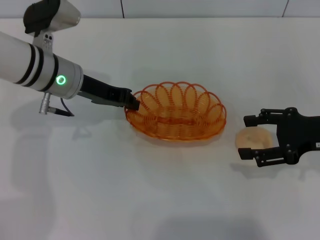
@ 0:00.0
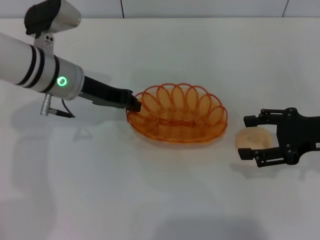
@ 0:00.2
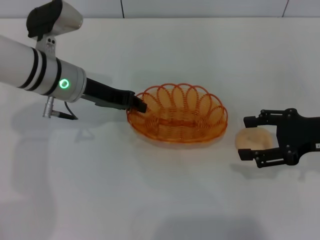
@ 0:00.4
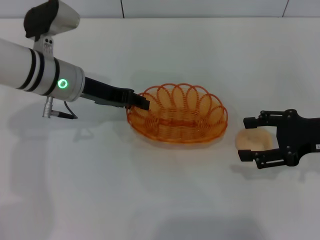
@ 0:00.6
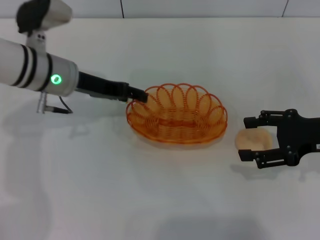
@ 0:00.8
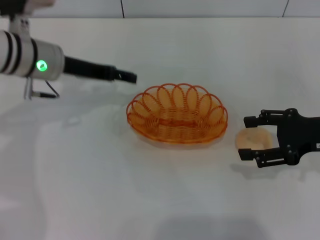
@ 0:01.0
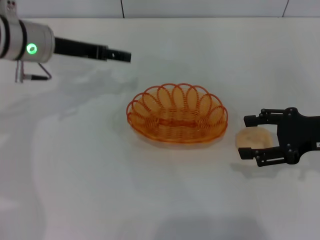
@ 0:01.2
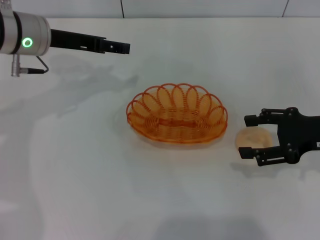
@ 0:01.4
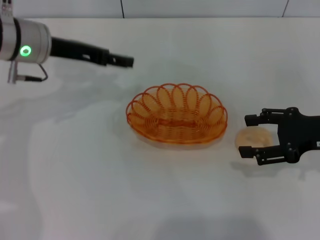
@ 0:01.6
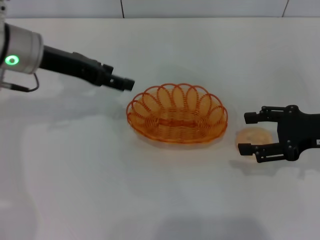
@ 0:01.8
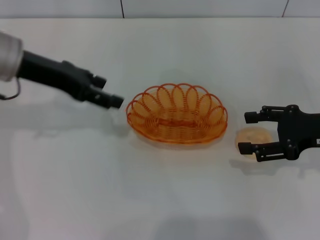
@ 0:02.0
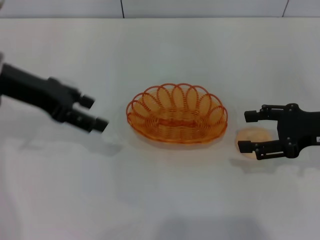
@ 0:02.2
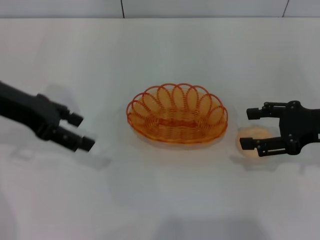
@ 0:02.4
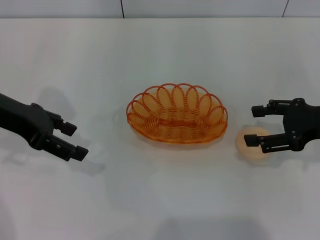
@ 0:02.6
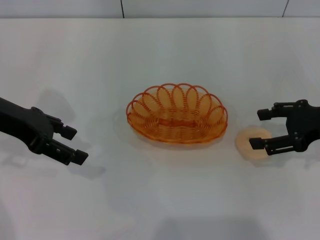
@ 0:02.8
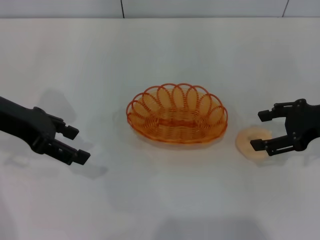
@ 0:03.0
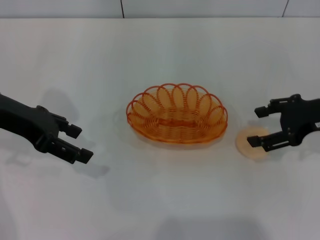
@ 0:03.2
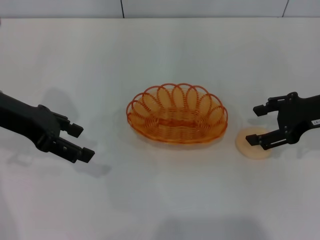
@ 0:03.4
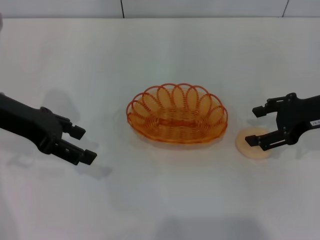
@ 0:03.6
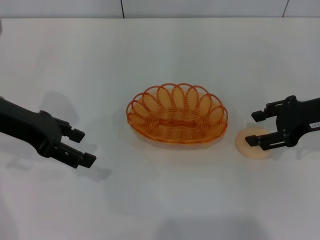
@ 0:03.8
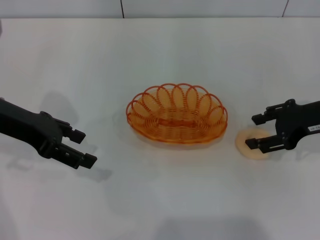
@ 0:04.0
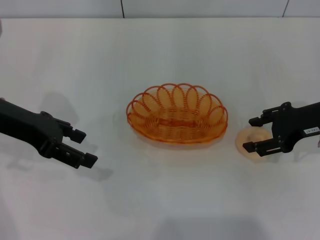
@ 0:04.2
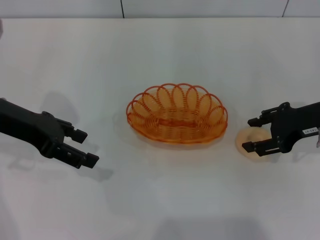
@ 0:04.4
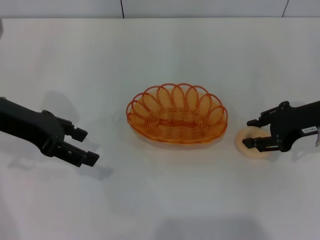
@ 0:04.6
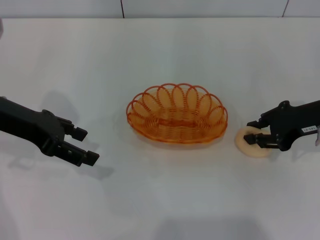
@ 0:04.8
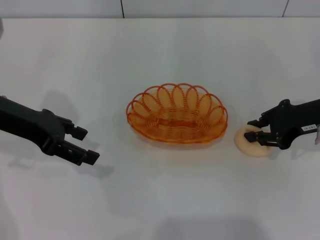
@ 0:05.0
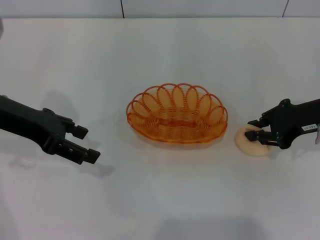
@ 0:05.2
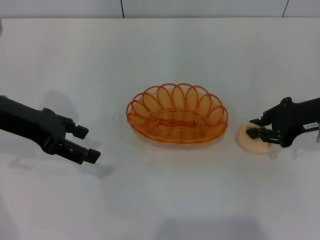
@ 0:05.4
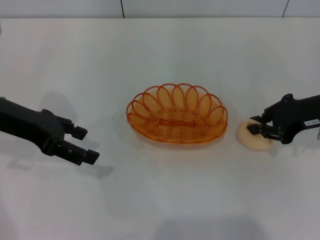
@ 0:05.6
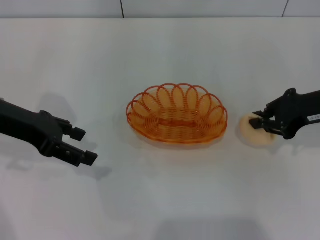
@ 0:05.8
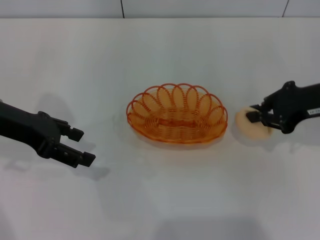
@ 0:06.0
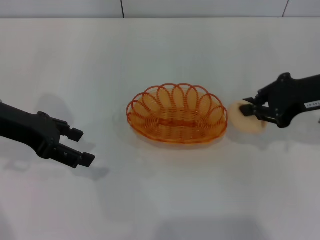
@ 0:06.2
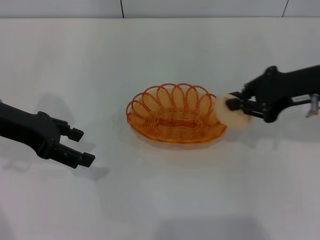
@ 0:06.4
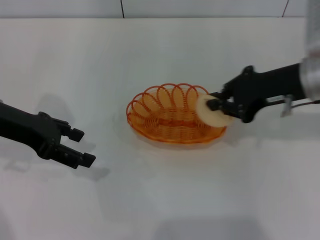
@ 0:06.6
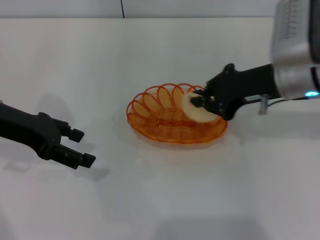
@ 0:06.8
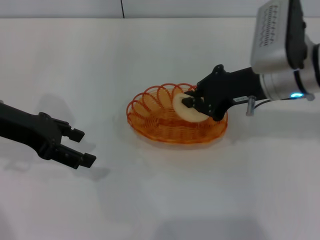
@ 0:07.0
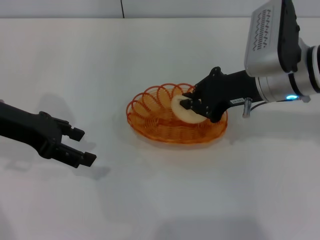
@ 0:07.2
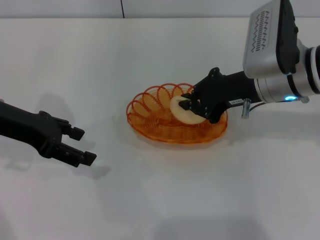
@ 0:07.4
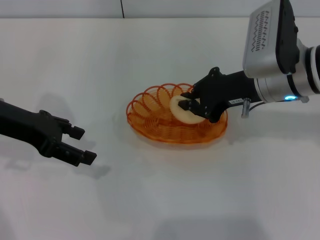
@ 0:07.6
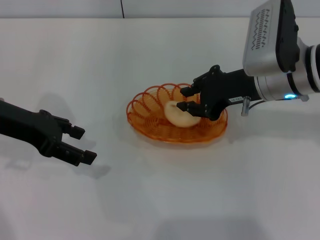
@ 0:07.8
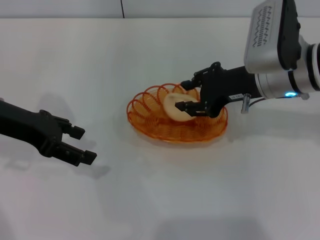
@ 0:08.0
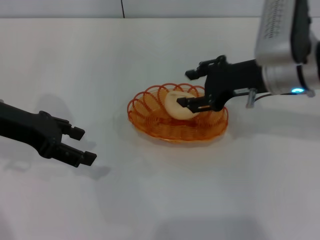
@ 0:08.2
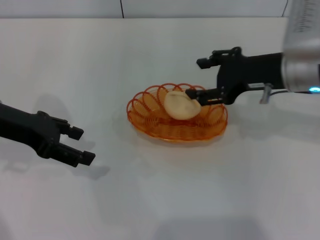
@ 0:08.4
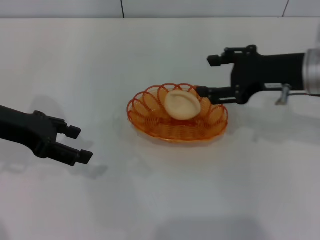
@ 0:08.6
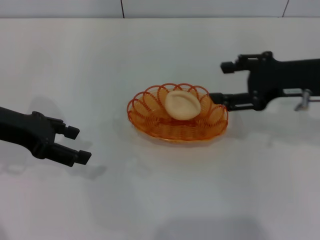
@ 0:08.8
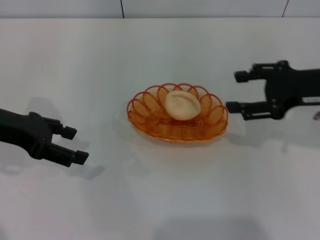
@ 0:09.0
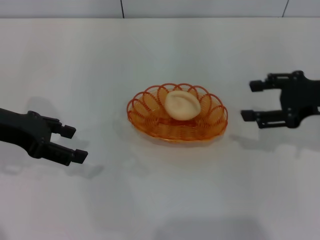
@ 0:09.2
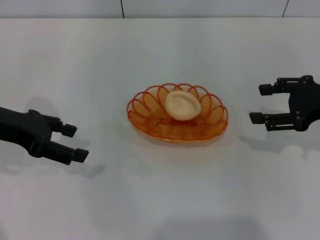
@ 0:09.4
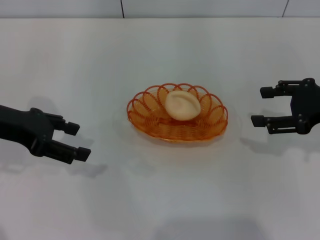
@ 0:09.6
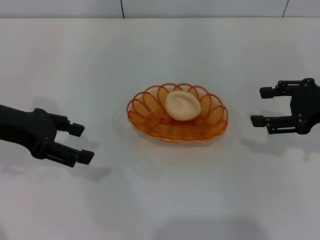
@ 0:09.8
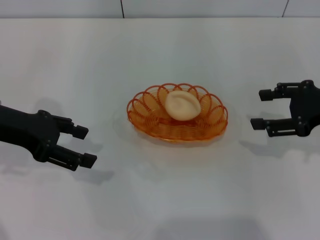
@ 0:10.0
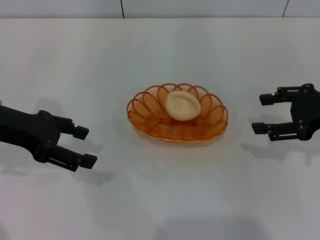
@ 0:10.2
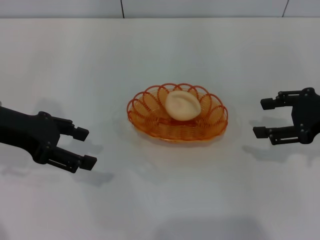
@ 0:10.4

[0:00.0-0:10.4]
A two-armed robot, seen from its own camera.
Step, 0:01.0 to 0:06.0: Pick up the egg yolk pastry with the right gripper.
Step, 0:06.4 to 0:08.6: Place the egg yolk pastry into the basket with the right gripper.
0:00.0 to 0:01.4: The left gripper changes place by some 5 cm, and opens up.
0:01.4 to 0:03.0: The left gripper moves backward and to the left, about 10 cm.
0:03.0 to 0:04.4: There are only small adjustments of the grippers.
0:04.4 to 0:06.0: The right gripper closes up.
0:06.0 to 0:07.4: The right gripper shifts some 10 cm to the left.
0:07.4 to 0:09.0: The right gripper goes about 10 cm to the right, and opens up.
0:09.0 to 0:10.4: There are only small adjustments of the grippers.
